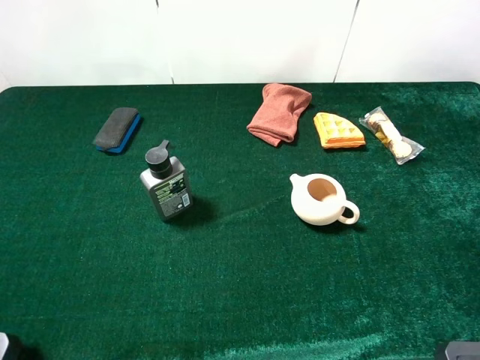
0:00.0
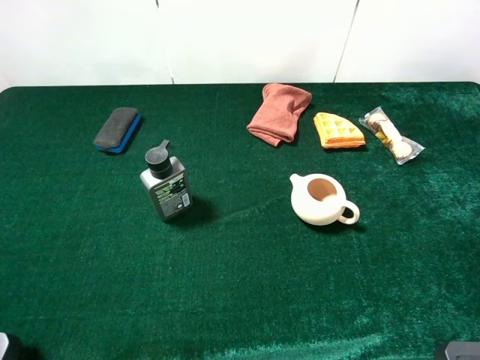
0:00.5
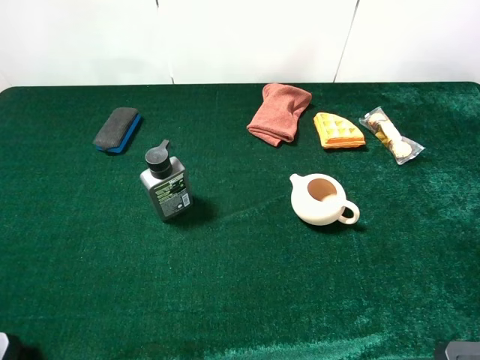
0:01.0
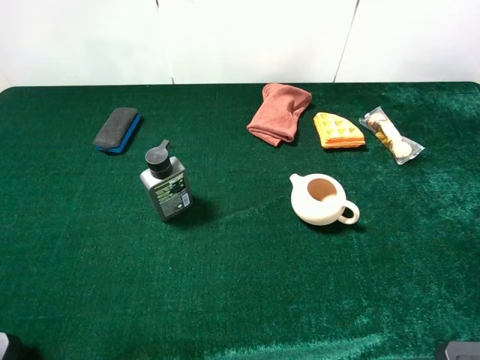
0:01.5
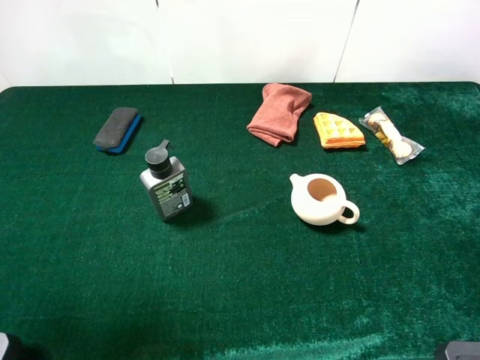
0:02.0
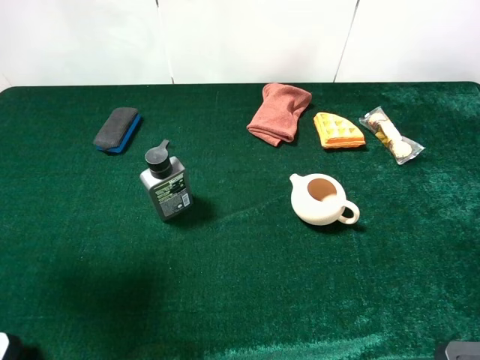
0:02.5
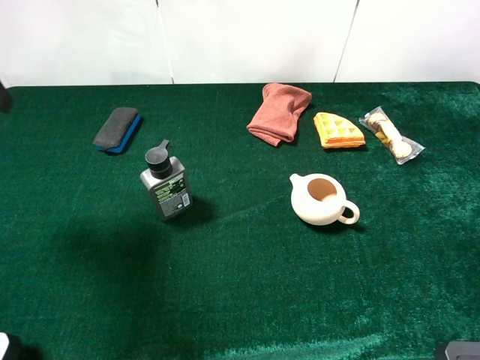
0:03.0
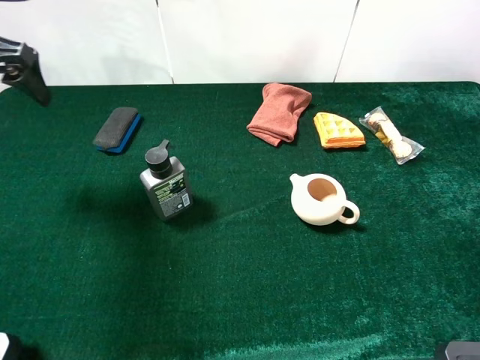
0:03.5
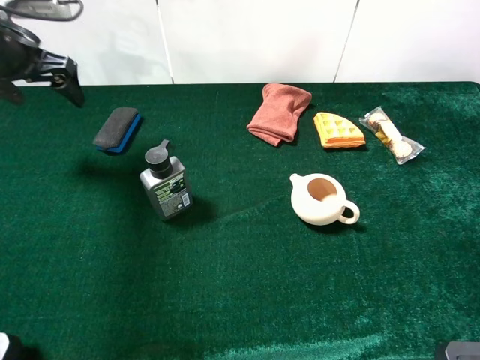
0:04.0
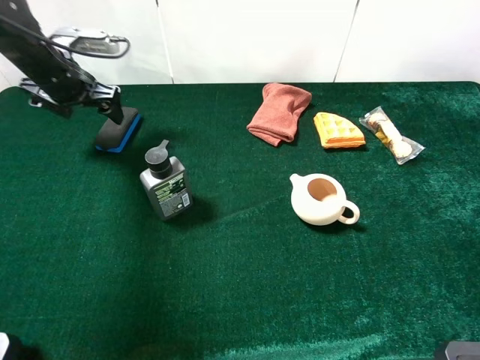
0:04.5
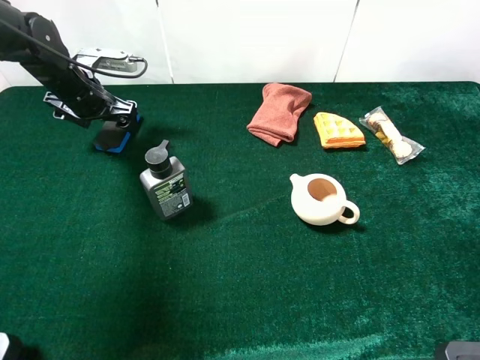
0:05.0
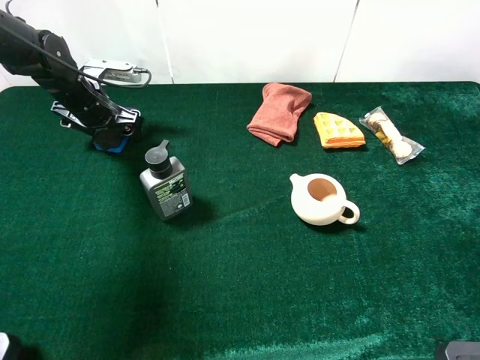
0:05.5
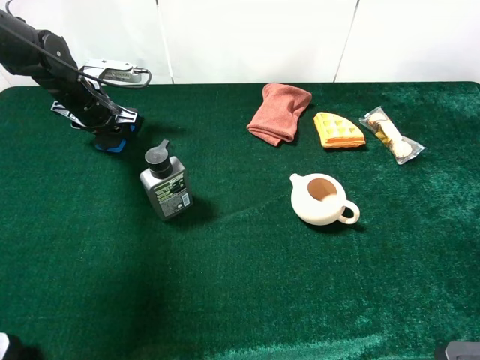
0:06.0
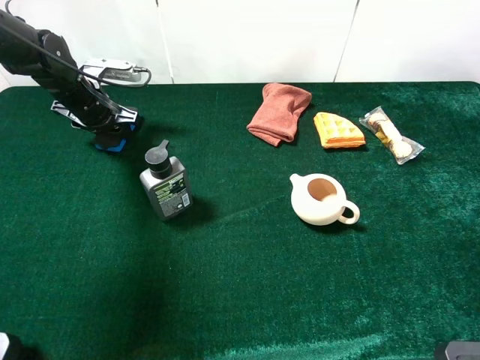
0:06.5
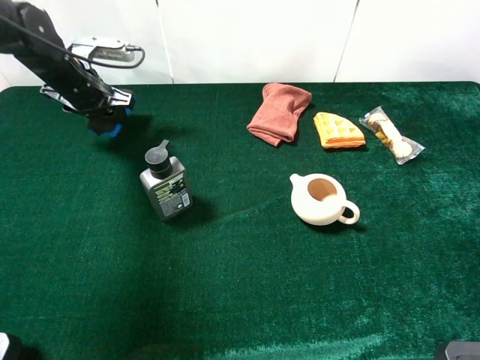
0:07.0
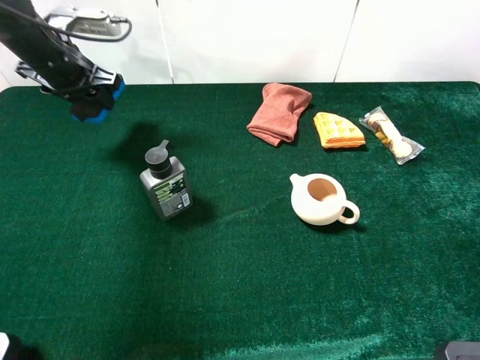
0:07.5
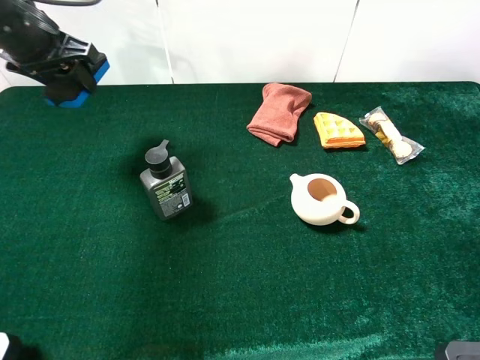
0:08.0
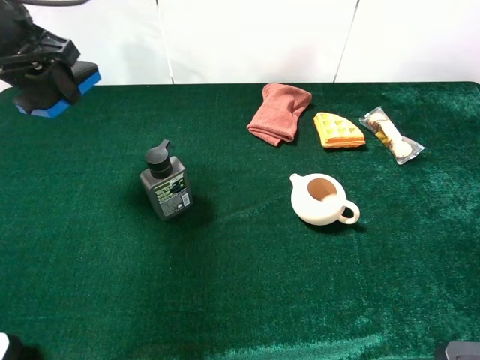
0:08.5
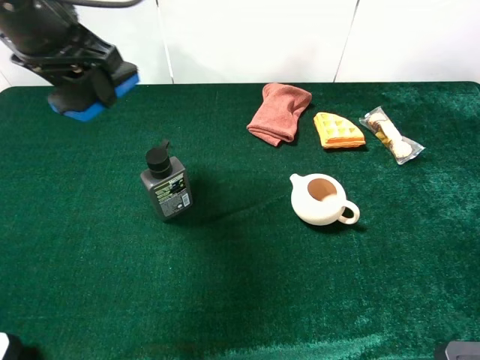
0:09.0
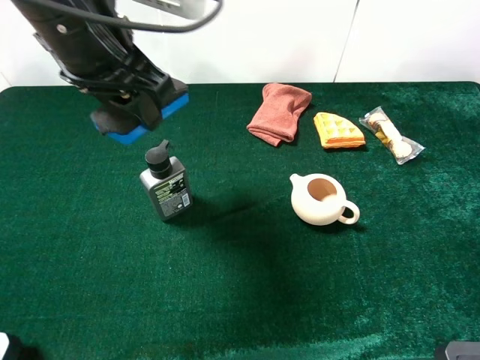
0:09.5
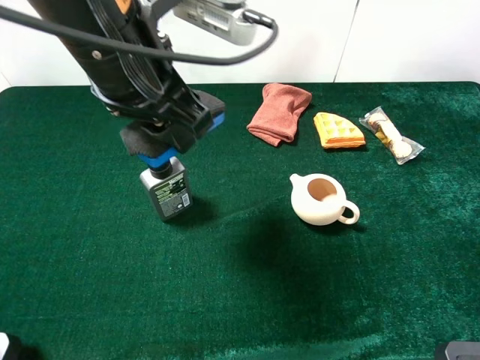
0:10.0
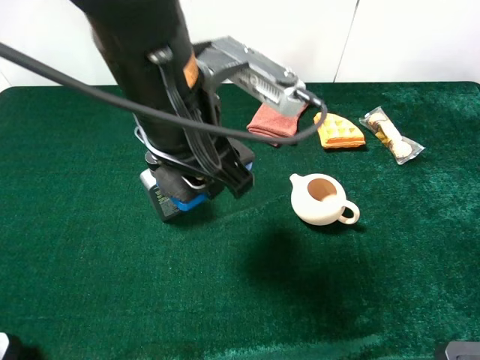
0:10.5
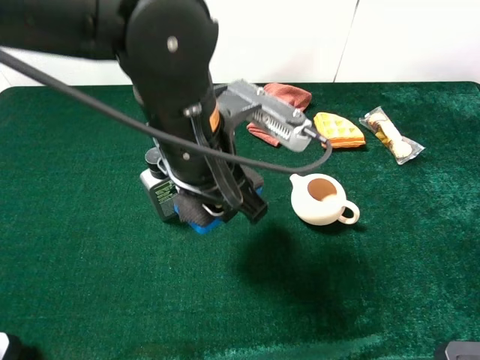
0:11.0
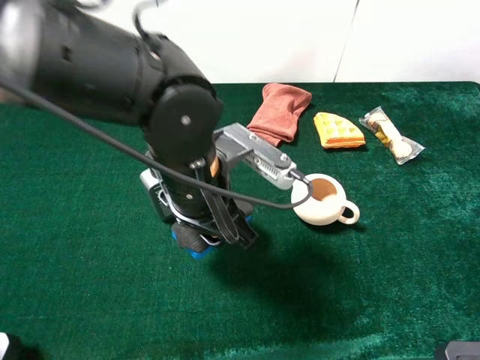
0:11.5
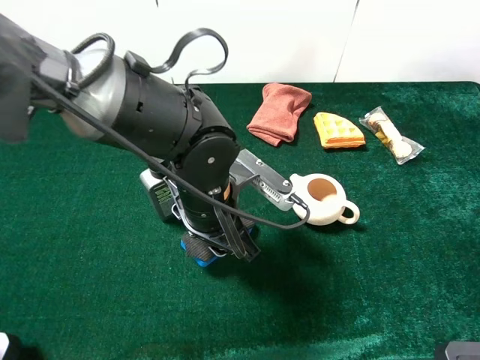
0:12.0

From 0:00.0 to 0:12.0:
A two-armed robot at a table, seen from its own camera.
Task of the whole recording: the gripper move the object.
Step, from 0:00.0 to 0:06.0: Grasp the blue blackboard earser with the left gripper.
From 0:00.0 to 0:02.0: The left gripper heads forward and upward, covering roughly 10 cm.
From 0:02.0 to 0:04.0: The left gripper goes some 30 cm forward and downward.
From 0:04.0 to 0:06.0: The left gripper travels downward by roughly 10 cm, and closes.
From 0:06.0 to 0:08.0: The left gripper heads upward, covering about 15 cm.
From 0:08.0 to 0:10.0: The left gripper goes approximately 25 cm to the right and backward.
From 0:10.0 to 0:12.0: The left gripper moves downward, approximately 20 cm.

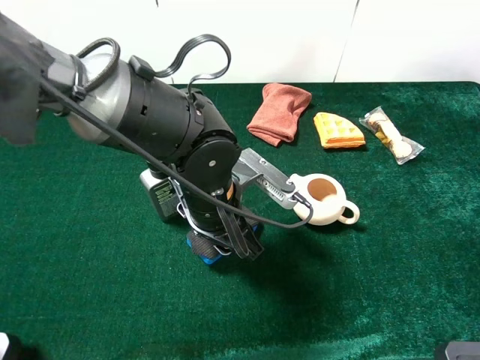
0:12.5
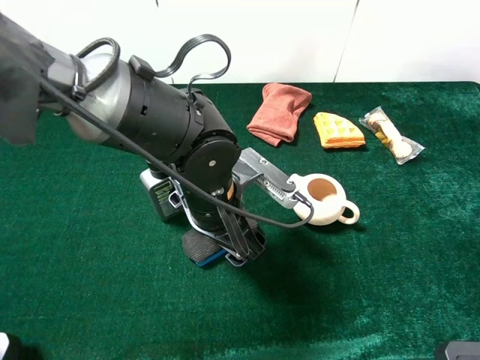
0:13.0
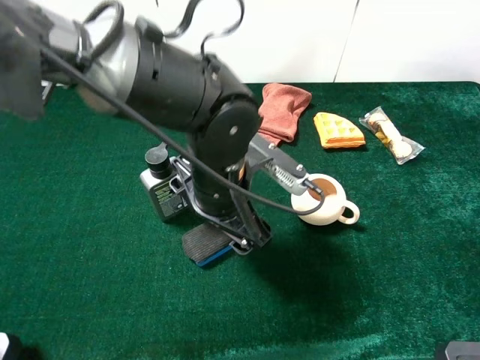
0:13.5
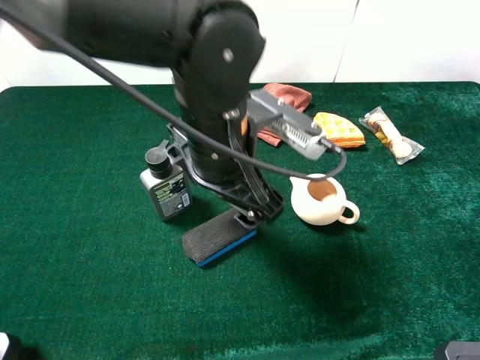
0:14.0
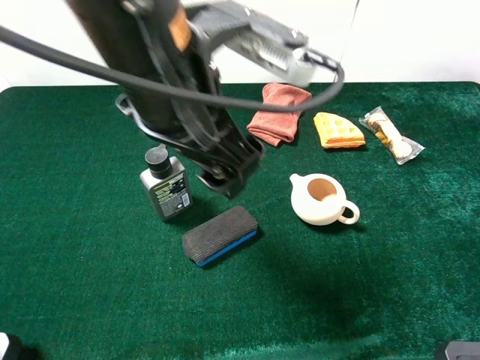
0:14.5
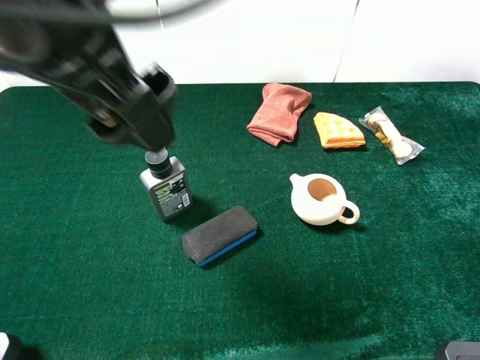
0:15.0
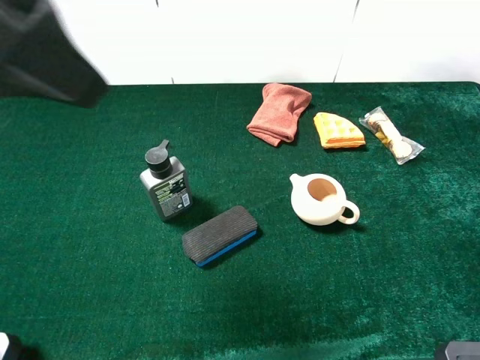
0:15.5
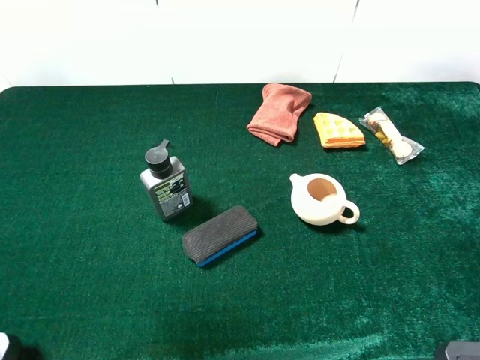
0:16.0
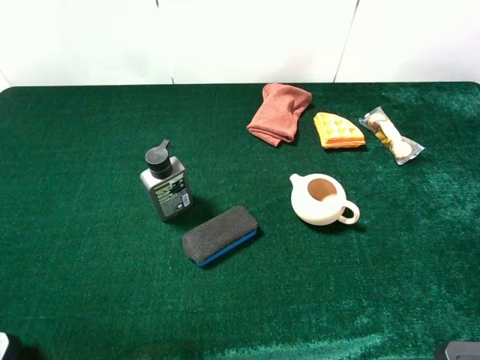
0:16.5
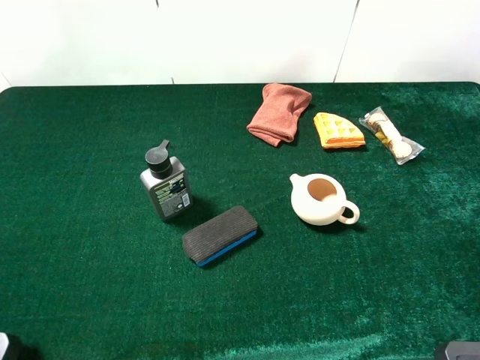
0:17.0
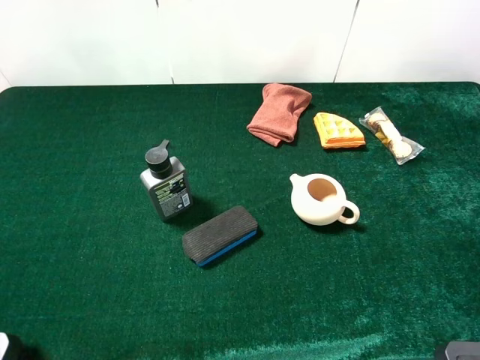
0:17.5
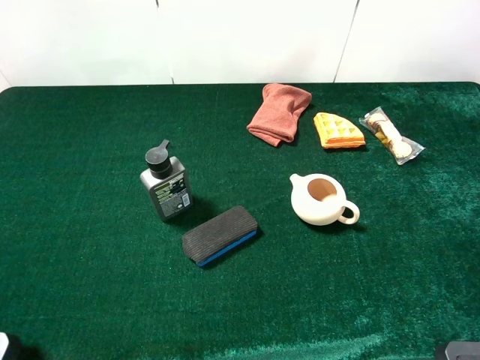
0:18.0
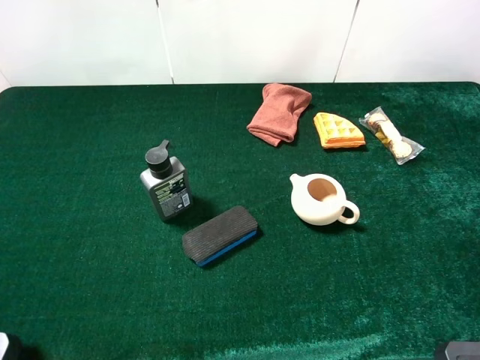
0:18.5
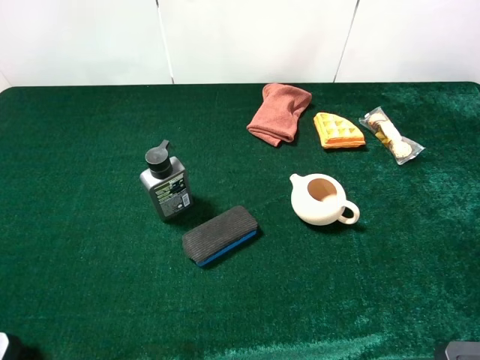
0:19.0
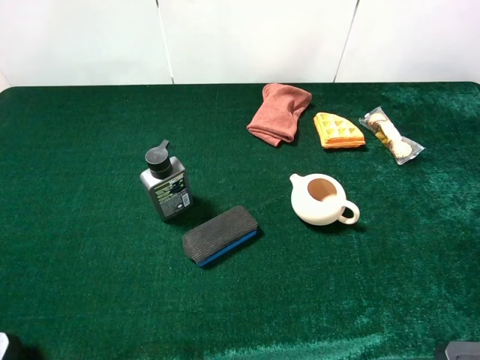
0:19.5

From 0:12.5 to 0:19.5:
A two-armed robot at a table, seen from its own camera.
Task of the whole recording: the gripper move the object.
From 0:12.5 to 0:14.5: The left gripper is displaced upward by approximately 20 cm, and opens.
From 0:14.5 to 0:16.0: The left gripper is displaced to the left, upward and backward by roughly 25 cm.

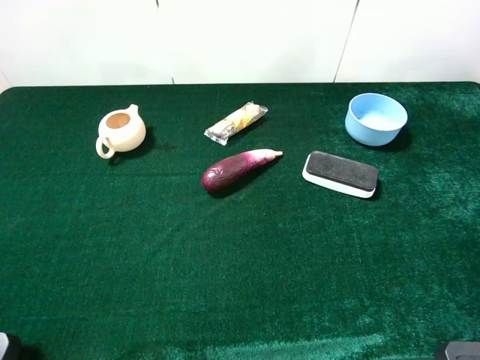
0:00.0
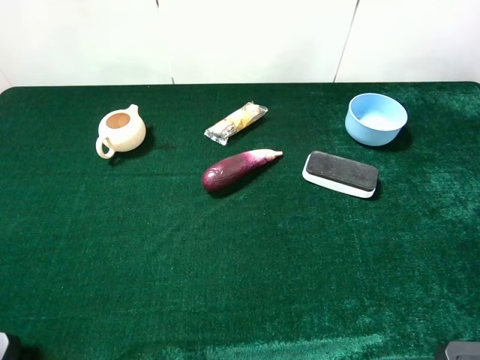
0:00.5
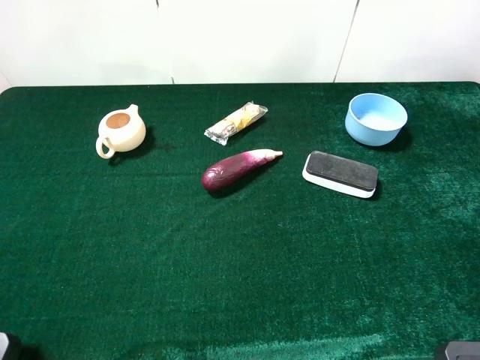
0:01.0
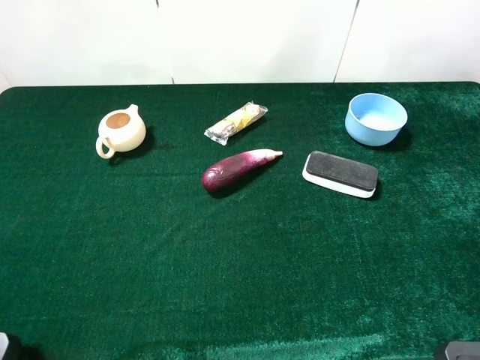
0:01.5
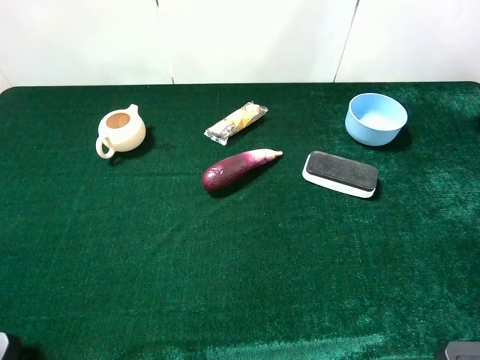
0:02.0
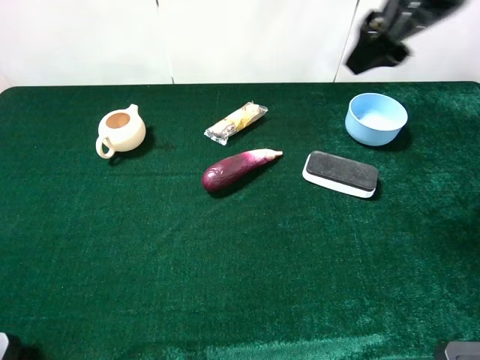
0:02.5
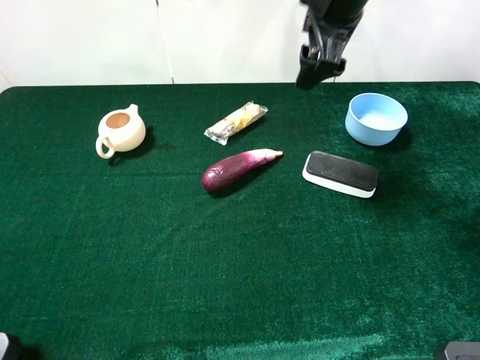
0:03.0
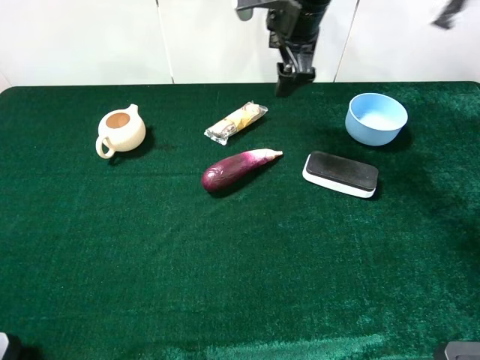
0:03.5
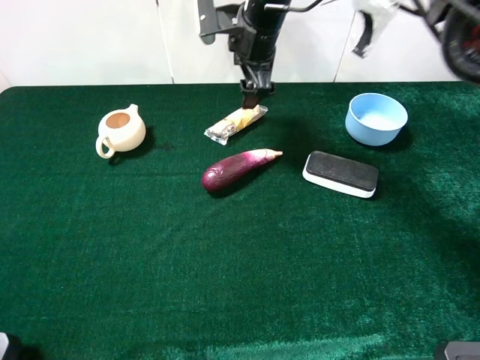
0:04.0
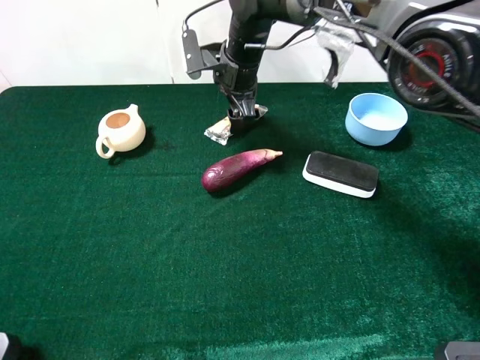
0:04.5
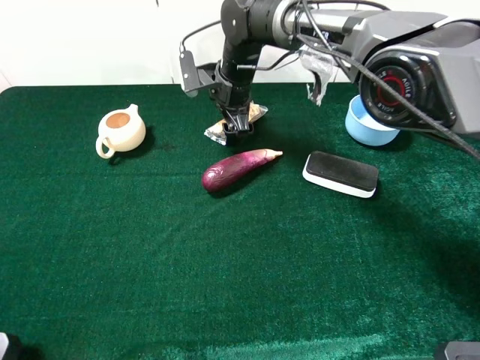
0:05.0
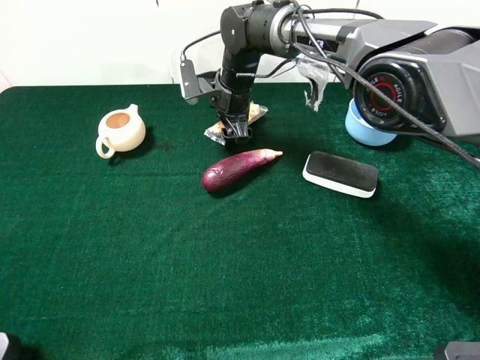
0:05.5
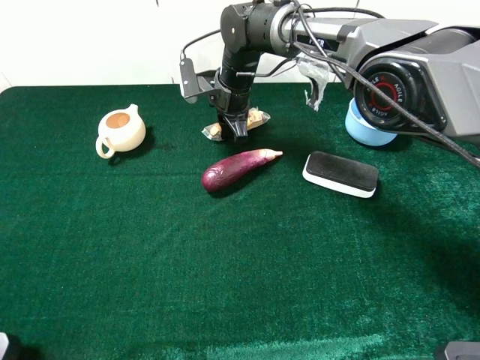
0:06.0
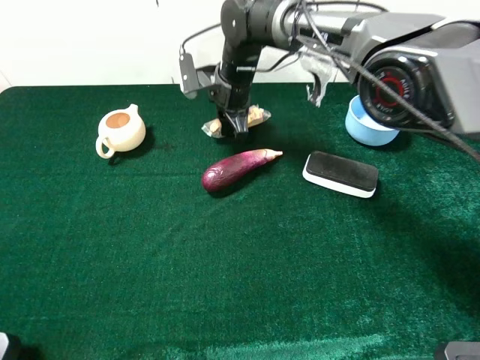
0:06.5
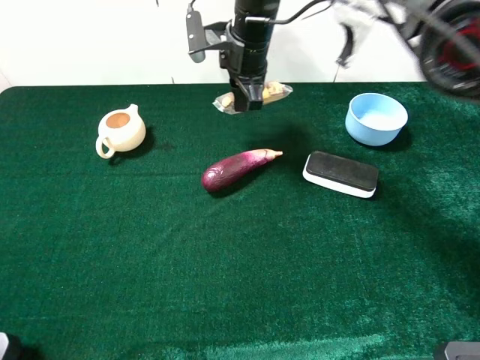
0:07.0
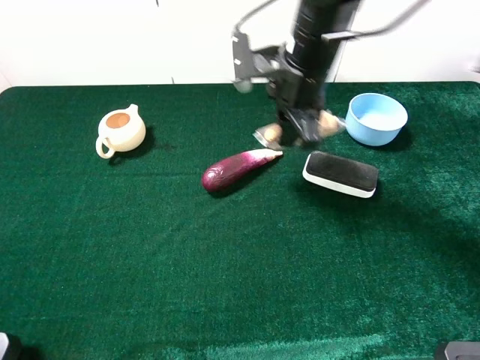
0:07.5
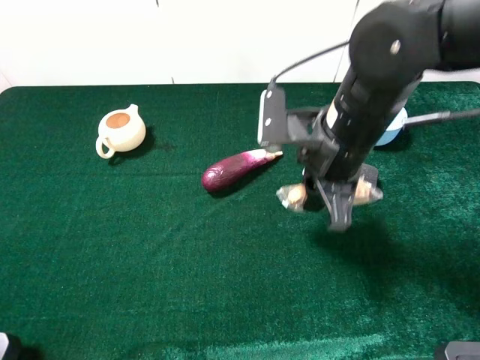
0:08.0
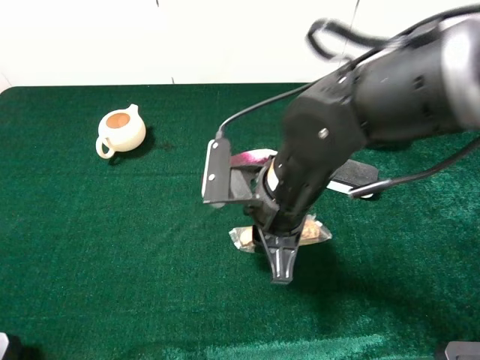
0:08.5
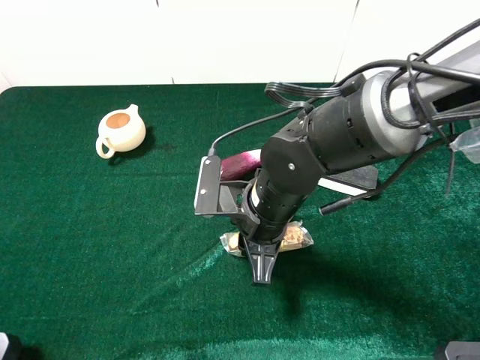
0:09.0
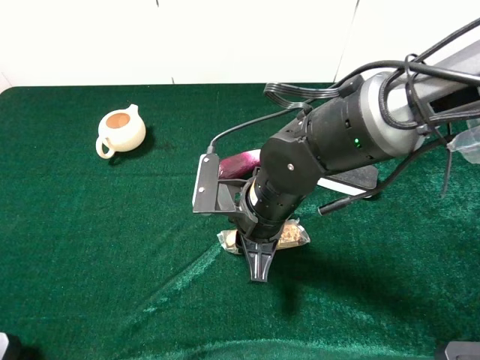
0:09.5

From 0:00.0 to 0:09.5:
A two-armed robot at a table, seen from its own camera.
Task of the whole recording: the gripper move the object.
Step, from 0:00.0 to 0:05.5: Grasp the chocolate with the right gripper.
From 0:02.0 to 0:04.0: The right gripper shifts some 40 cm to the left, forward and downward.
From 0:04.0 to 0:05.5: The right gripper heads downward, covering roughly 10 cm.
From 0:05.5 to 0:07.5: The right gripper goes some 20 cm backward, upward and to the right, and closes.
From 0:07.5 to 0:09.5: The right gripper shifts about 15 cm backward and downward.
